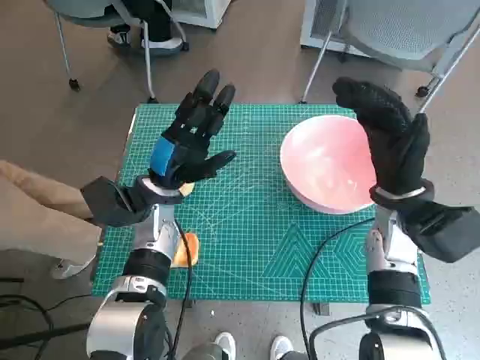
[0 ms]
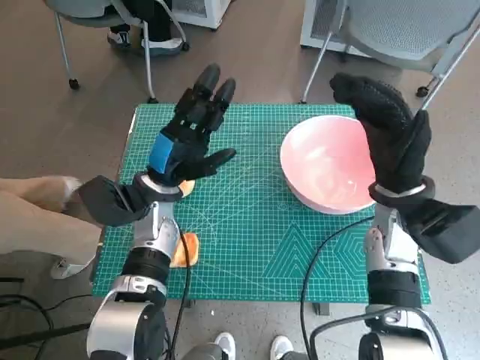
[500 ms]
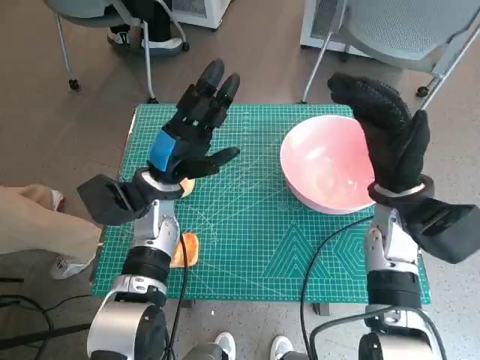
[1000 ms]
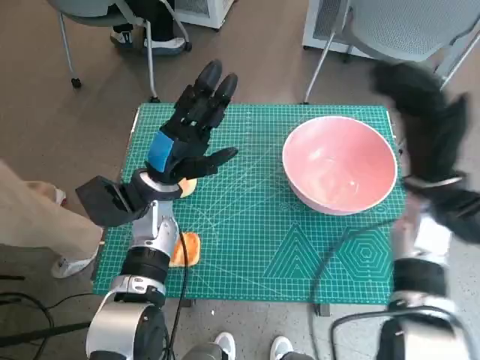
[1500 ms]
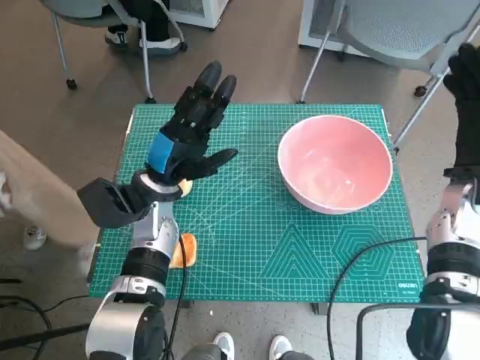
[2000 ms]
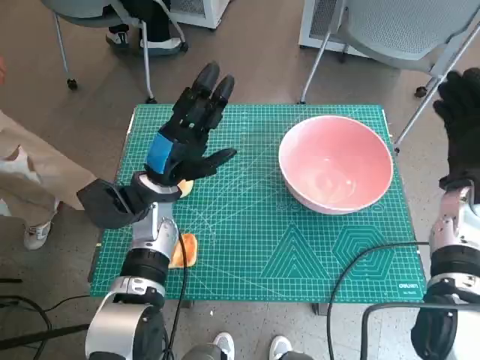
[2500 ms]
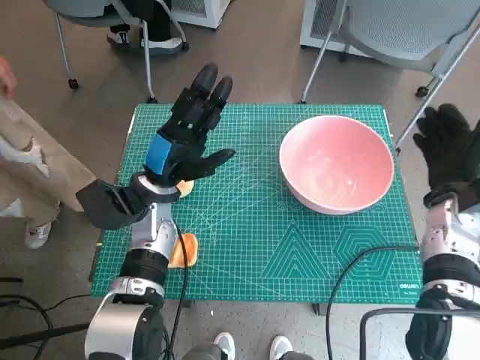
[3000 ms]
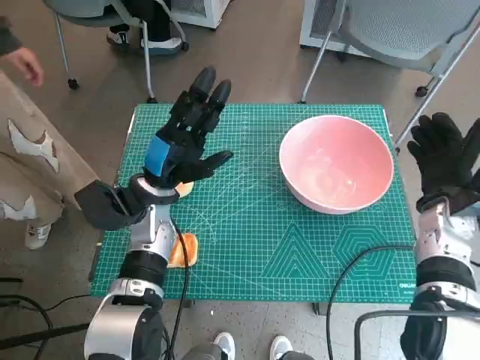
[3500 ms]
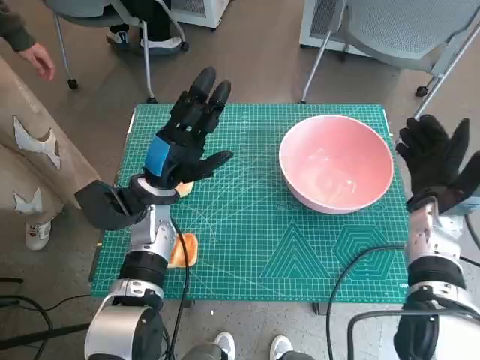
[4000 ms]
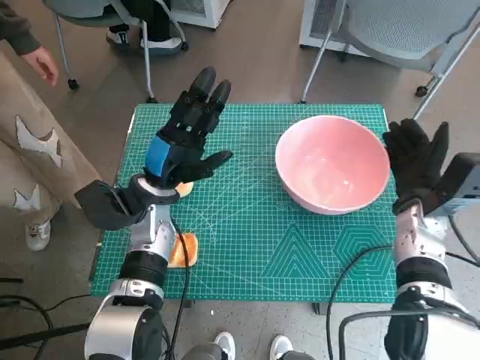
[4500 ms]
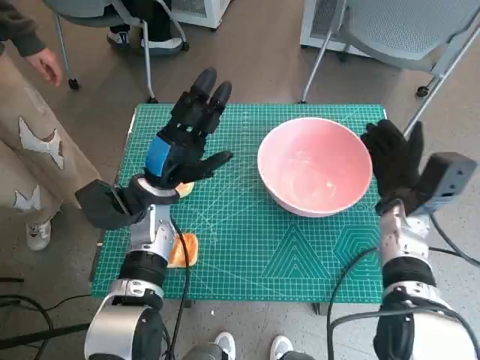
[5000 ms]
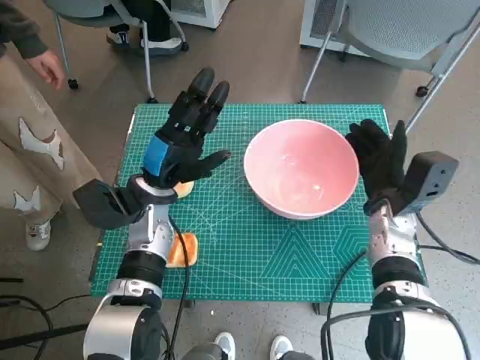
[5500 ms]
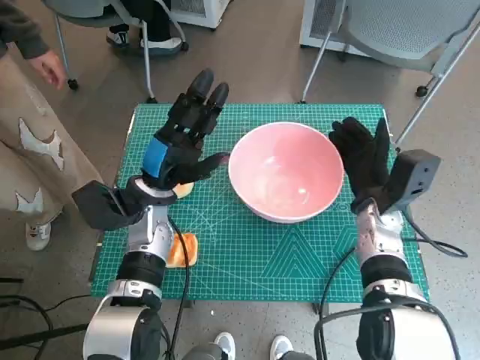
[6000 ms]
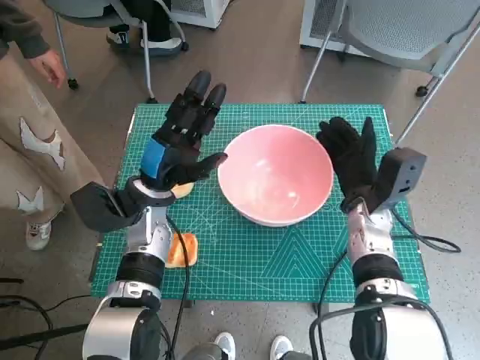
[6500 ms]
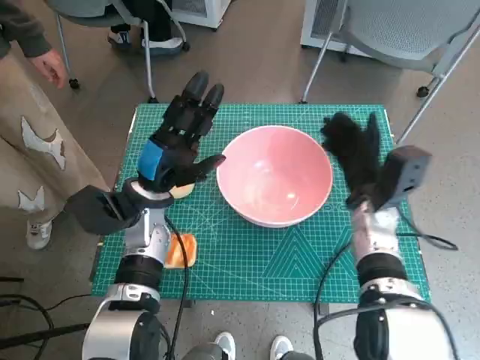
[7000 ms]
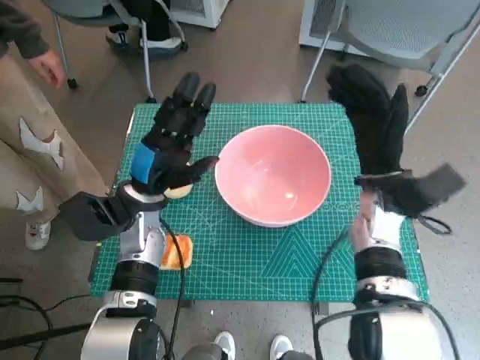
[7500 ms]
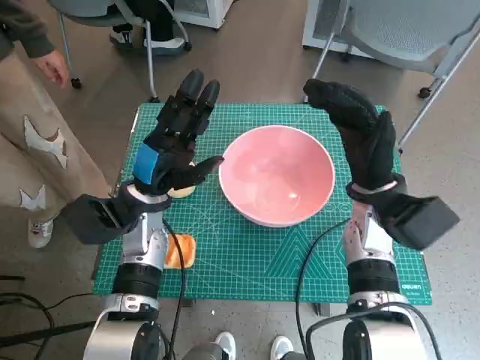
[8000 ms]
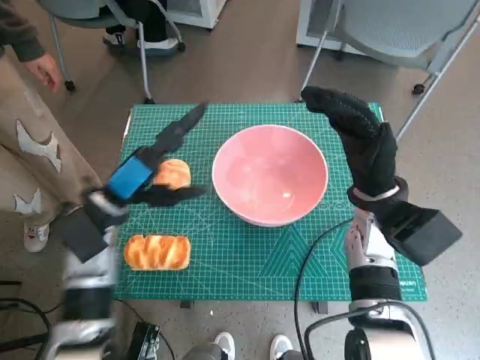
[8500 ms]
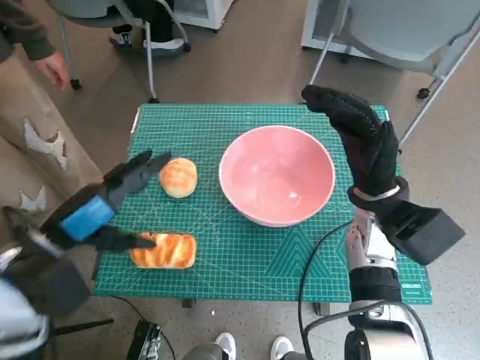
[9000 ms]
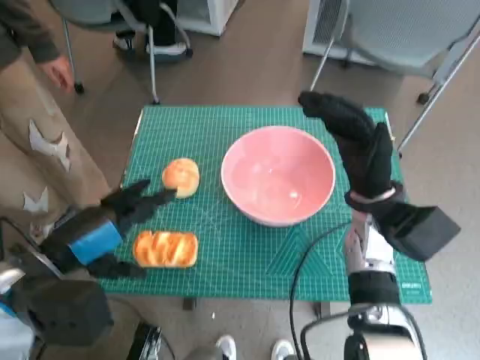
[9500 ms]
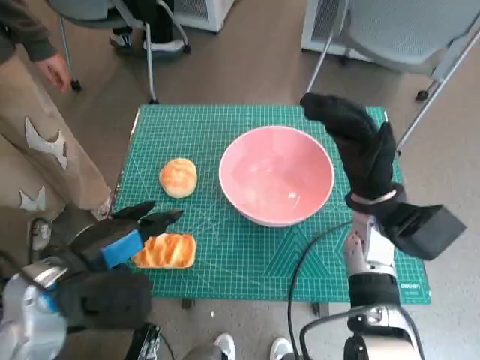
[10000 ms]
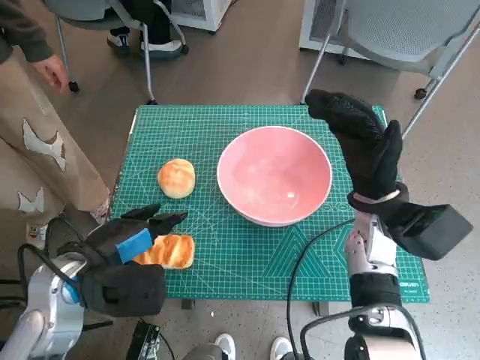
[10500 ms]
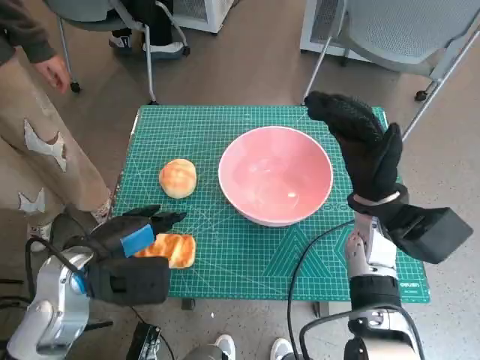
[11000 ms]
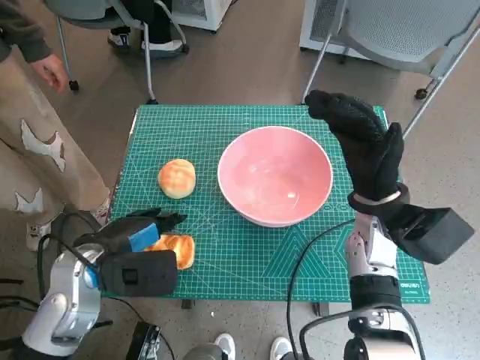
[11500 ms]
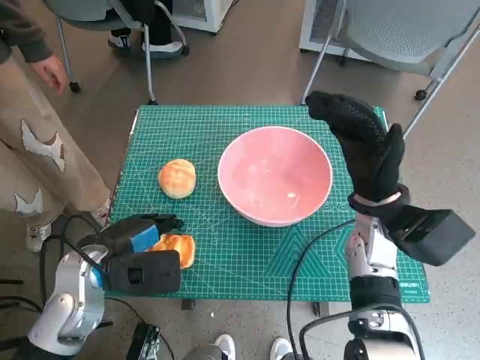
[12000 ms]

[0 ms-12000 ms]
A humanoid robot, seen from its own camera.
Step, 0 ms to 7000 ms: Move the pink bowl to the center of table with right hand.
2000 ms to 4000 ms: The right hand is displaced downward by approximately 5 cm.
4000 ms to 6000 ms: The right hand is displaced to the left by some 5 cm.
6000 ms to 8000 ms: The right hand heads upward, covering roughly 5 cm.
8000 ms to 10000 ms: The left hand goes some 15 cm backward, upward and to the left.
10000 ms to 12000 ms: The left hand ends up some 5 cm from where it was.

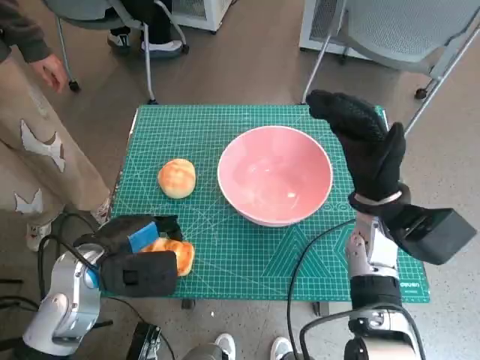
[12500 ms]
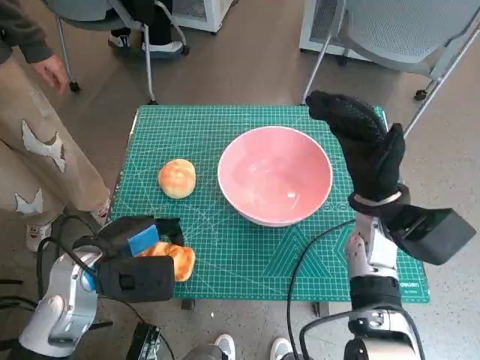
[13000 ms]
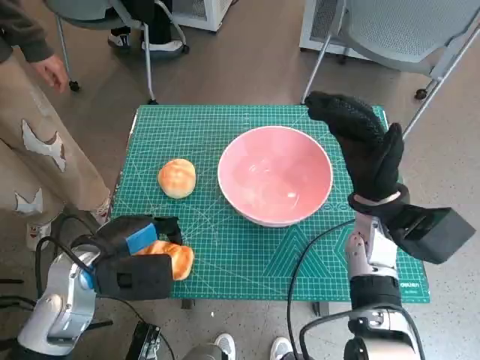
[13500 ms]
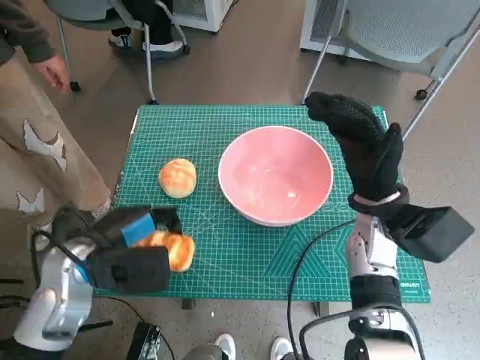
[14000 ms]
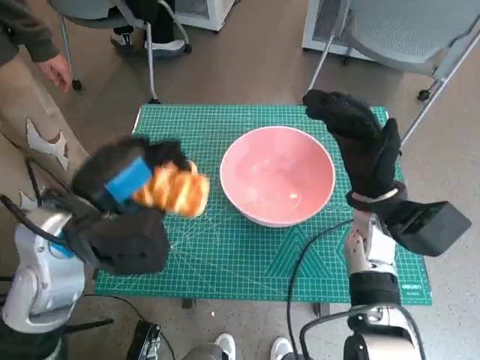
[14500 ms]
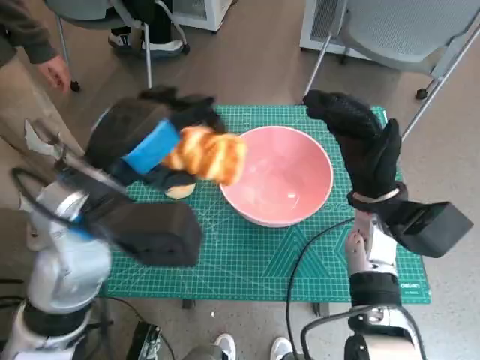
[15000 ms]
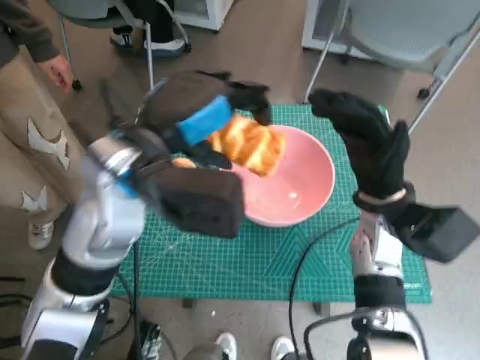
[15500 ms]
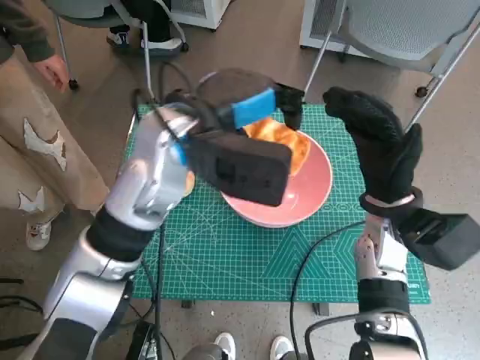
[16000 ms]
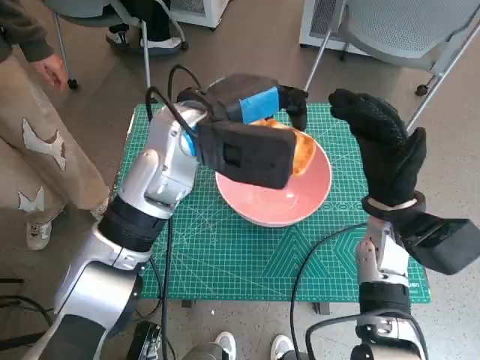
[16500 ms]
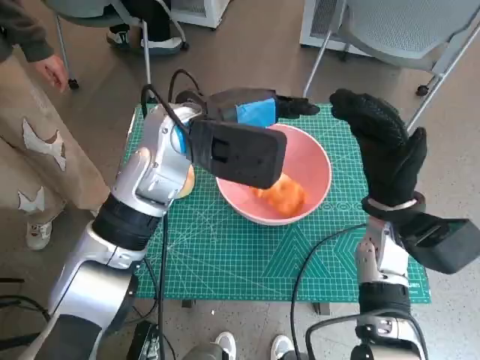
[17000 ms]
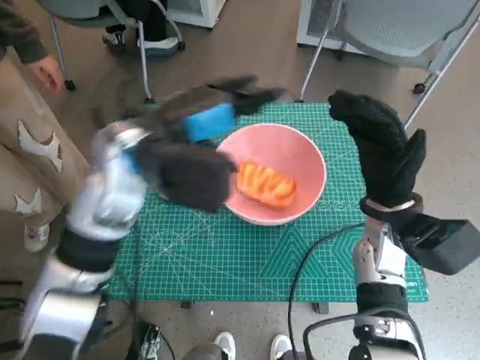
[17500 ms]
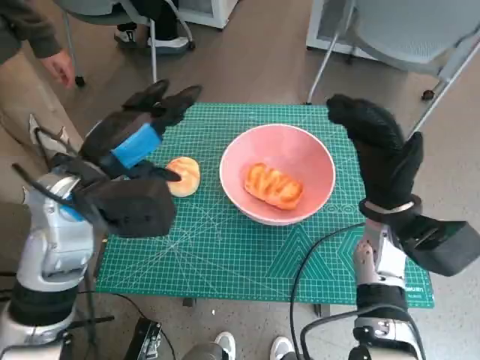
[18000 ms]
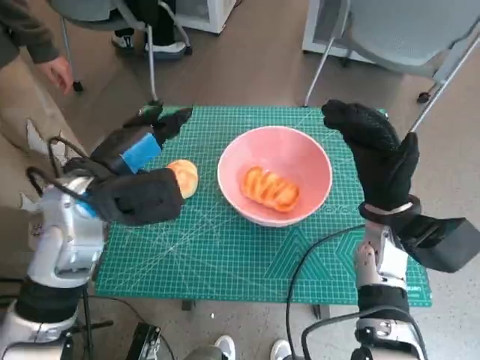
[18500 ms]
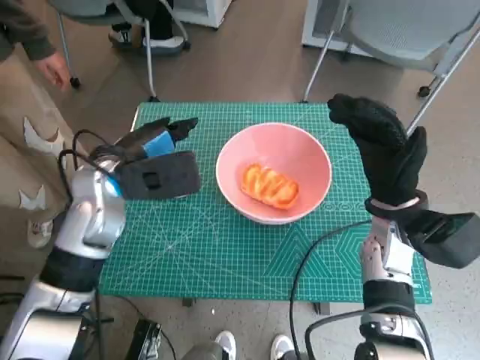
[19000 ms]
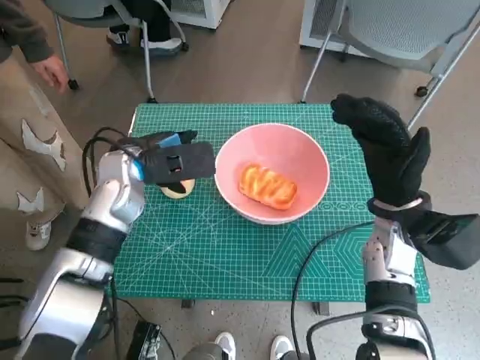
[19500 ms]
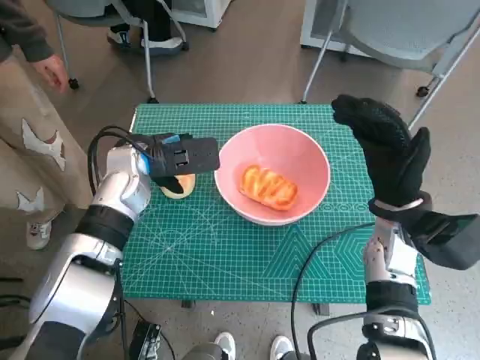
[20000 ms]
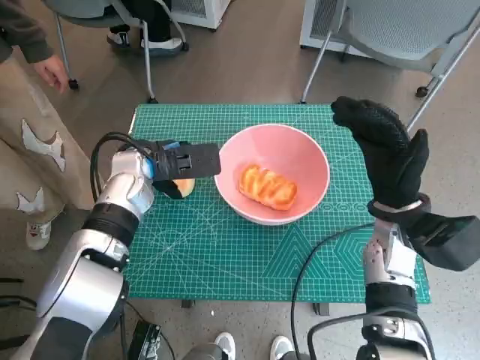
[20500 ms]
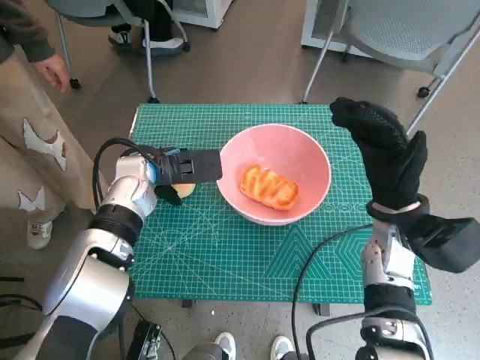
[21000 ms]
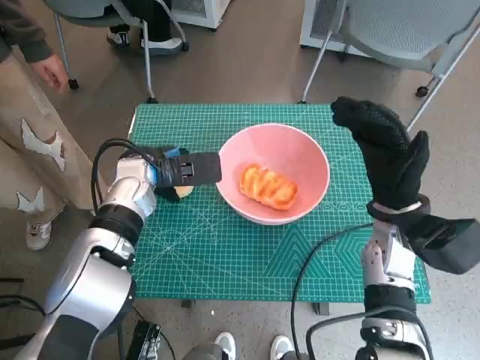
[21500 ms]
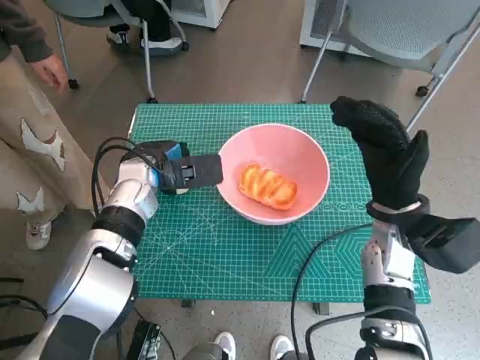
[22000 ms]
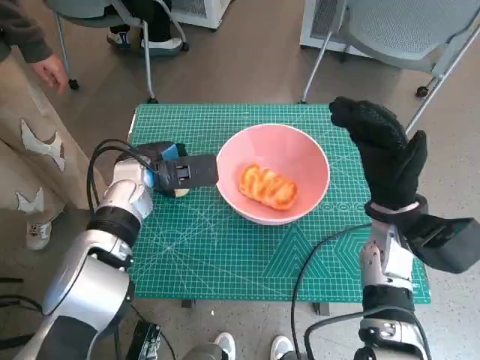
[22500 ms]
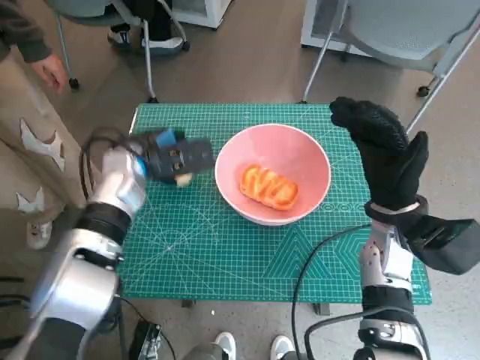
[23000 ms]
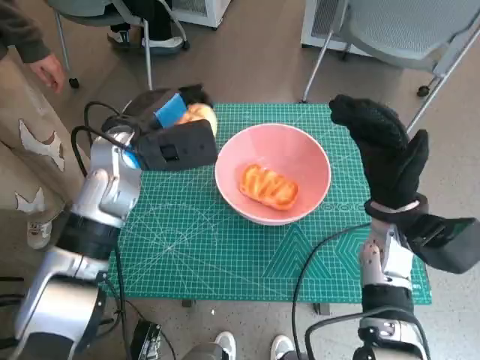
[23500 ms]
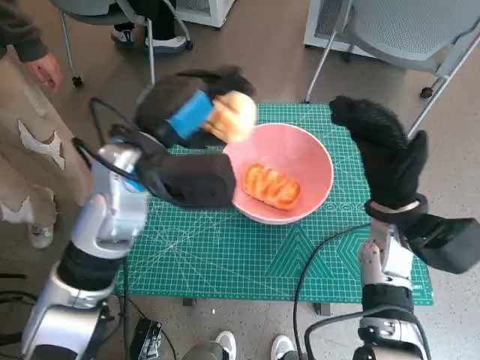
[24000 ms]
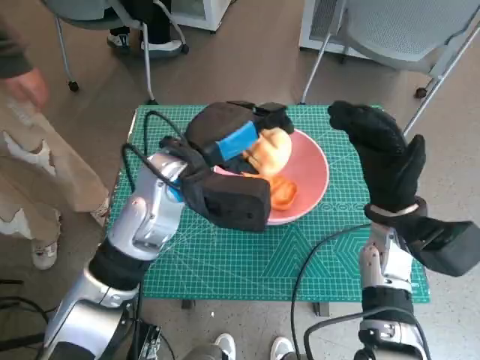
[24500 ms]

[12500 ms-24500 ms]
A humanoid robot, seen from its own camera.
Step, 12500 ms to 17000 ms: Place the long bread in pink bowl with left hand.
Step, 17500 ms to 21500 ms: Grasp the round bread with left hand.
12500 ms to 14500 ms: The left hand heads upward, covering roughly 10 cm.
14500 ms to 16500 ms: The left hand goes some 15 cm to the right and forward.
16500 ms to 18500 ms: The left hand heads to the left and backward, covering roughly 15 cm.
18500 ms to 20500 ms: The left hand goes approximately 10 cm forward and downward.
20500 ms to 22500 ms: The hands stay close to where they were, moving slightly.
22500 ms to 24500 ms: The left hand shifts about 15 cm upward, to the right and backward.

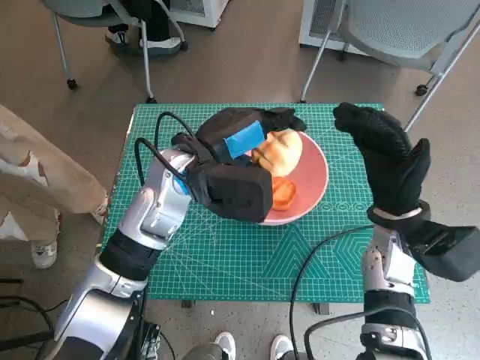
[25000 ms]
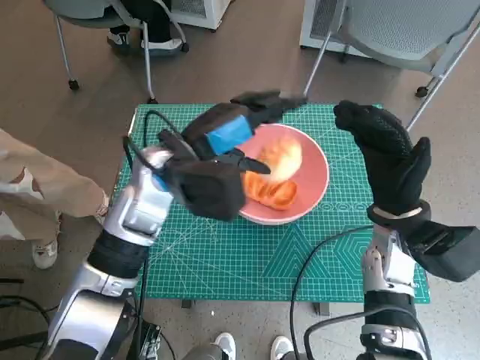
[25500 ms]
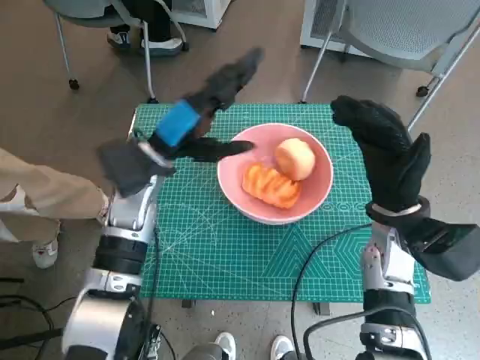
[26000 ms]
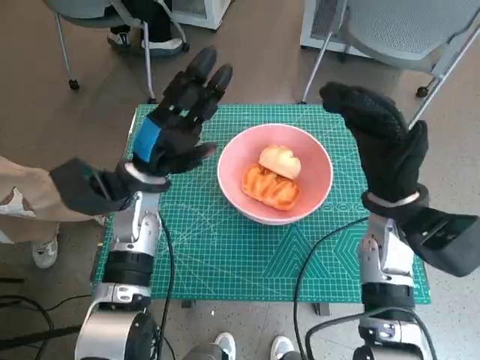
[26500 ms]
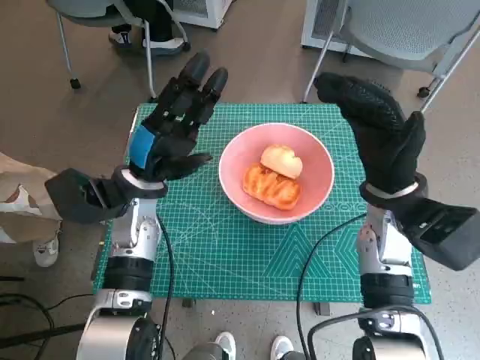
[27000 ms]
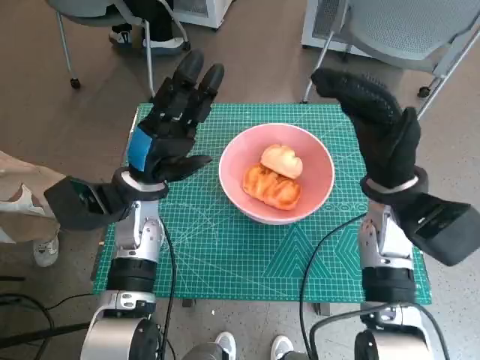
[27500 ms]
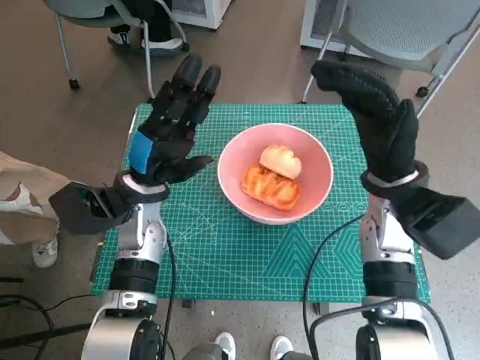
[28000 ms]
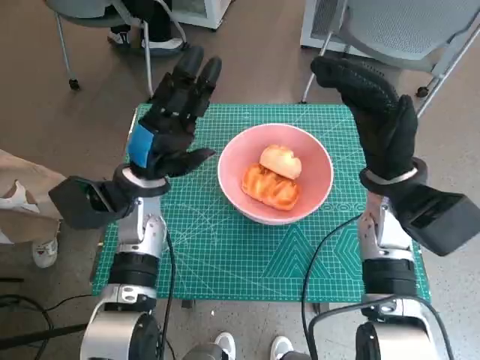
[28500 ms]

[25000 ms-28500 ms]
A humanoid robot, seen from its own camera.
25000 ms to 27000 ms: The left hand moves to the left and downward, some 10 cm.
27000 ms to 28500 ms: There are only small adjustments of the hands.
